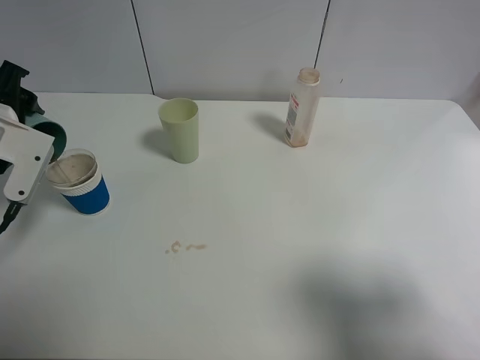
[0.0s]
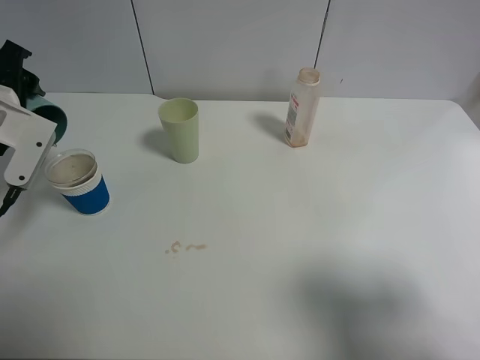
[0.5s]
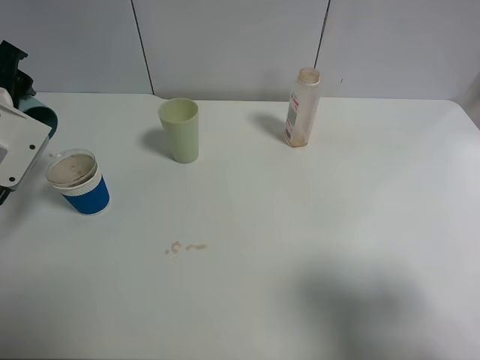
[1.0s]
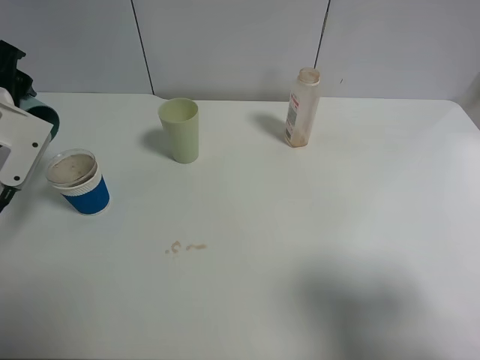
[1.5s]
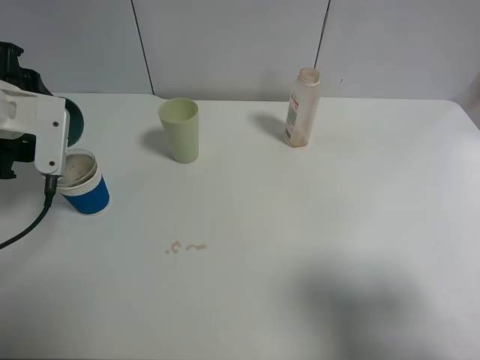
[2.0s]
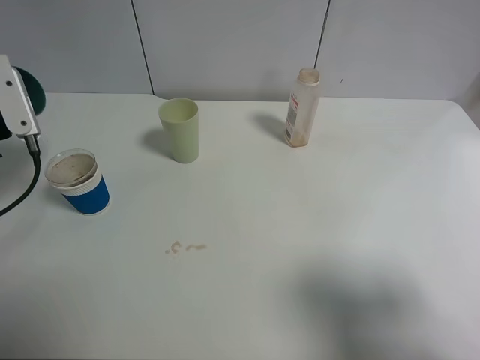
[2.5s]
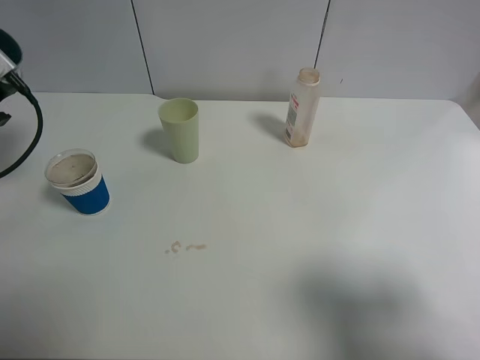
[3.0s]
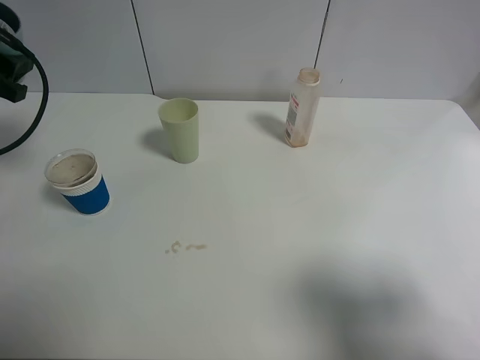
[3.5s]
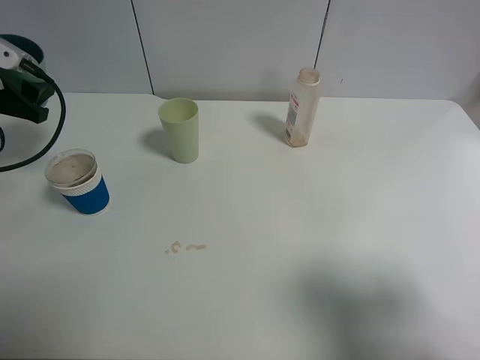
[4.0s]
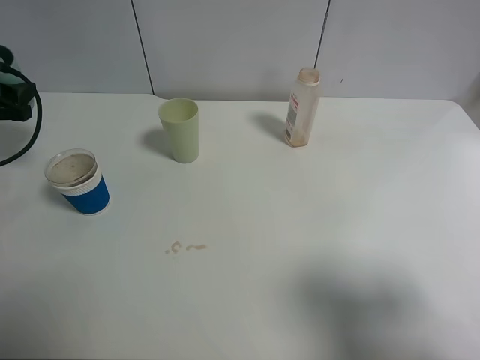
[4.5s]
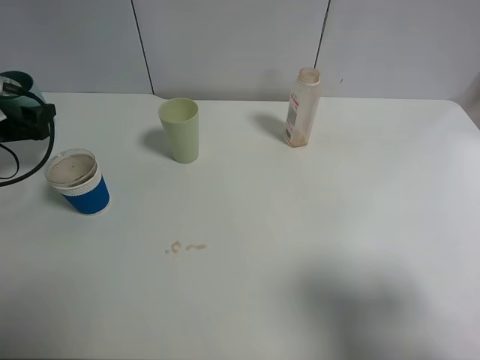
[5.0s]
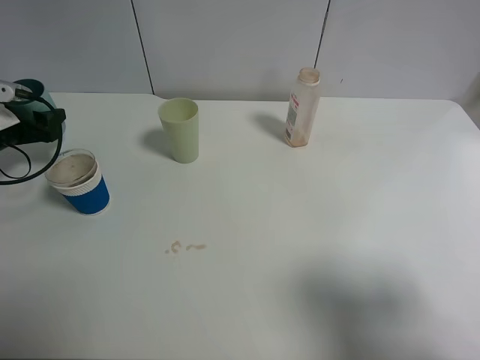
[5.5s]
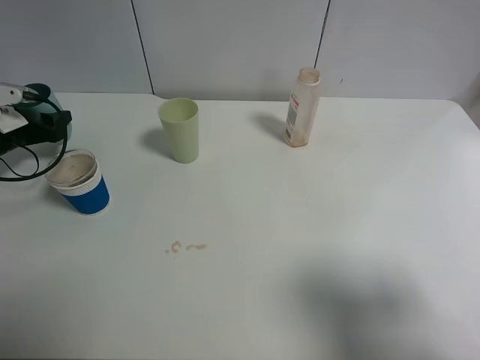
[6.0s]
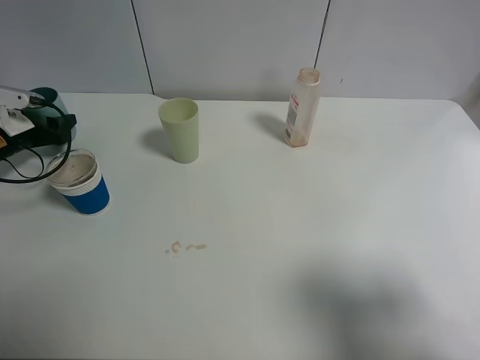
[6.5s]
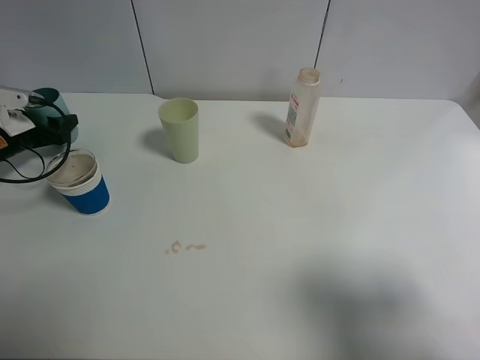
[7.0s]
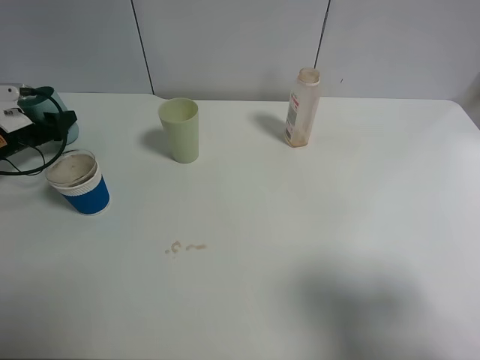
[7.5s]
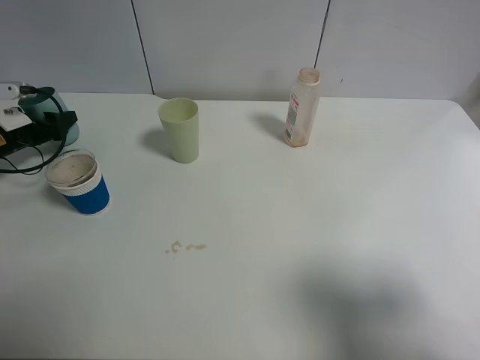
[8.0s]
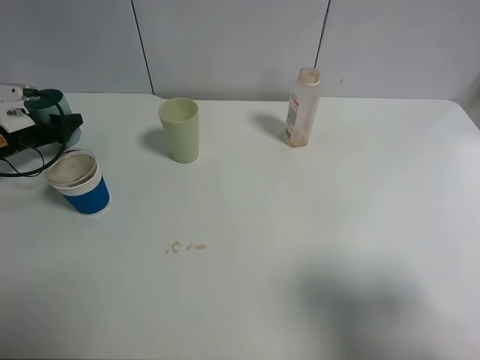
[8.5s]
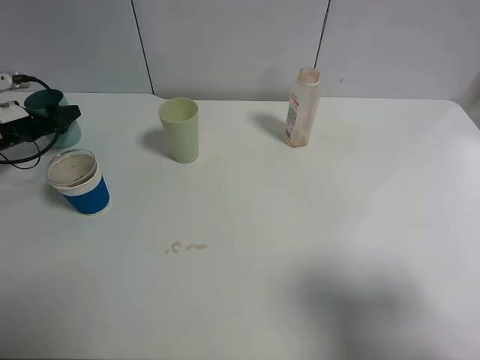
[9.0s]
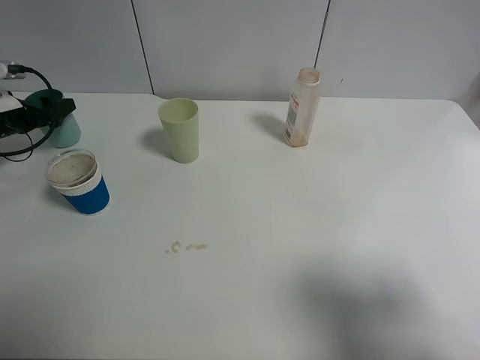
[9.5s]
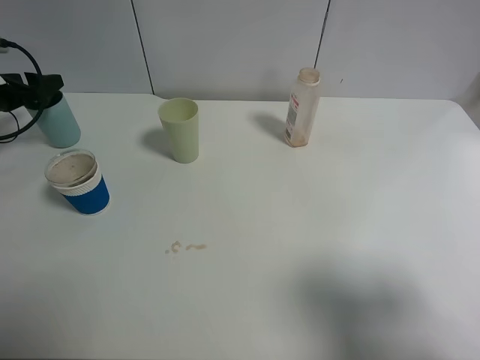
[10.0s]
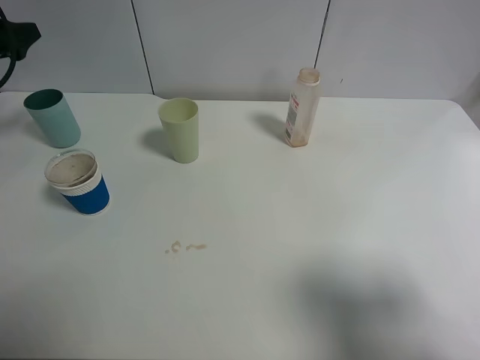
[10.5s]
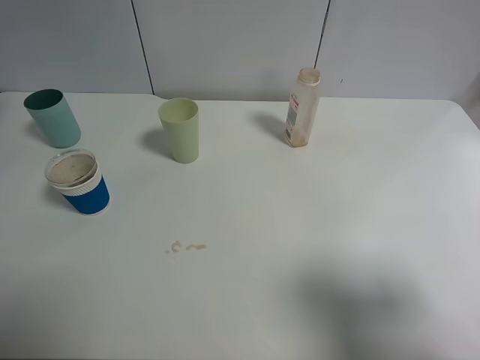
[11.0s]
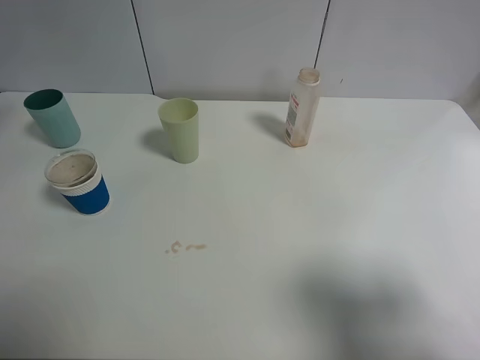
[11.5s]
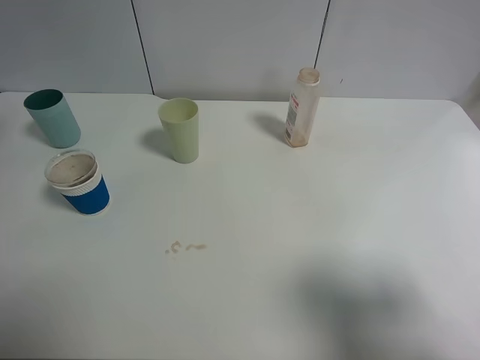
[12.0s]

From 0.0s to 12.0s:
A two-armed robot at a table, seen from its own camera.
Task of the whole recording: use a clamp to hold the bottle of the drink, pour the beverage into a random cup, then clamp the cup containing the drink and pour the drink into another random cup.
Step, from 2.0s to 10.5s: Place the blue plastic cup on the table with left gripper.
From 2.0s to 4.0s: The left gripper is displaced to the left by about 10 cm.
From 4.0s to 6.0s: The left gripper moves downward, forward and to the left, some 15 cm.
From 6.0s to 8.0s: The grippers move only a little.
From 8.0s to 10.0s: The left gripper shifts roughly 10 cm upward, and opens.
From 10.0s to 12.0s: The left gripper travels upward, backward and to the right by roughly 25 cm.

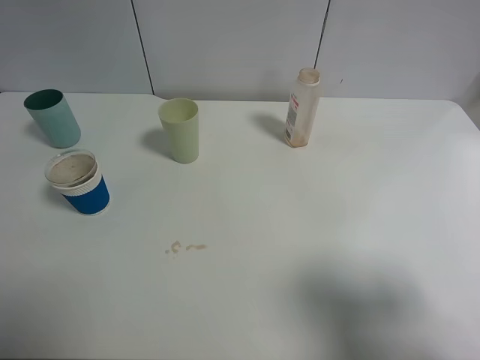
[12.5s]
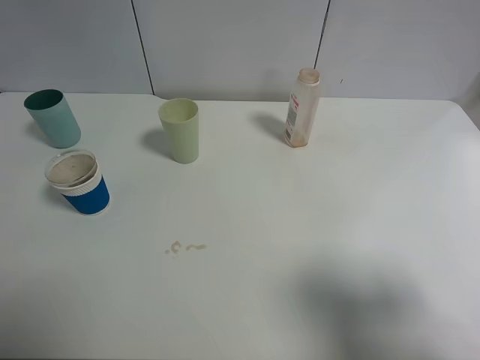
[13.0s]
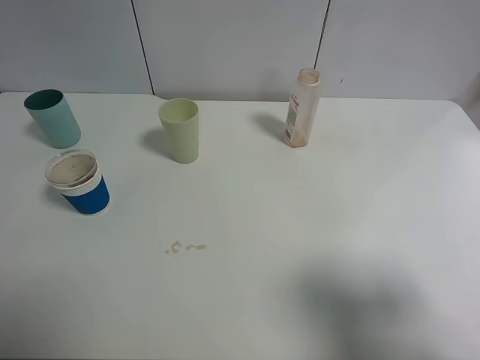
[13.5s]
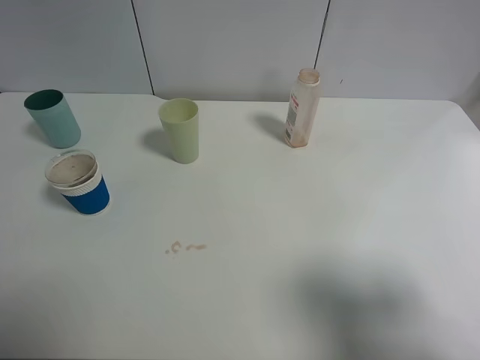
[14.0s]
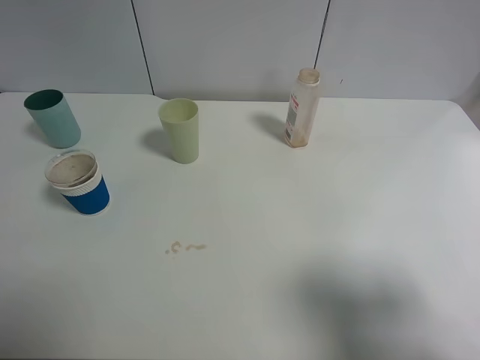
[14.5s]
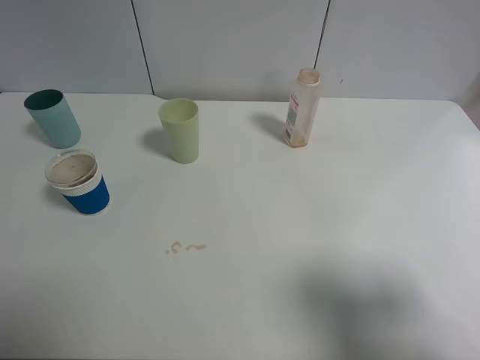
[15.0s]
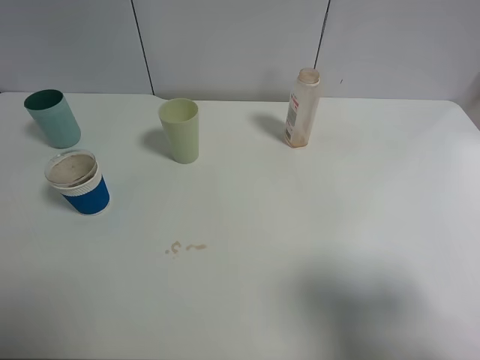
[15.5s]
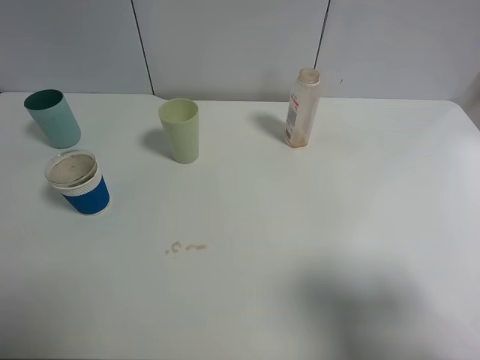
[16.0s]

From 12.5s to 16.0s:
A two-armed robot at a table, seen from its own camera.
Task of the whole recording: use a clamp to hold the bottle of the drink, pour the beverage into a random cup, then clamp the cup containing the drink and pour the drink into another random cup.
From 14.5s to 16.0s: Both grippers stay put.
